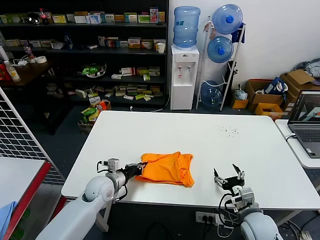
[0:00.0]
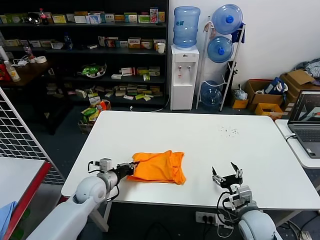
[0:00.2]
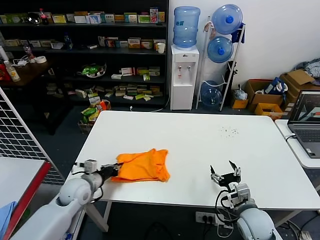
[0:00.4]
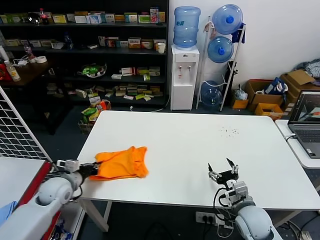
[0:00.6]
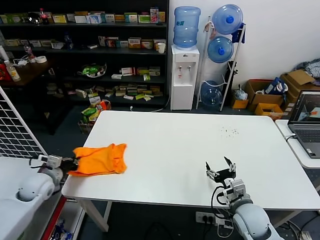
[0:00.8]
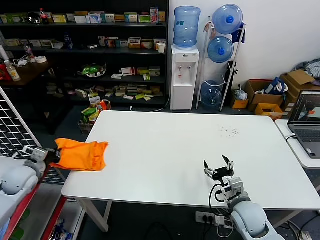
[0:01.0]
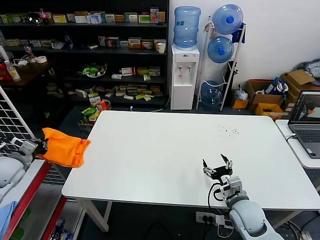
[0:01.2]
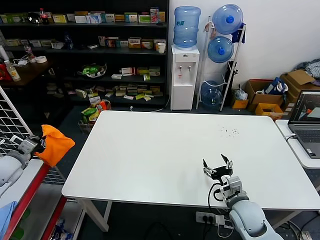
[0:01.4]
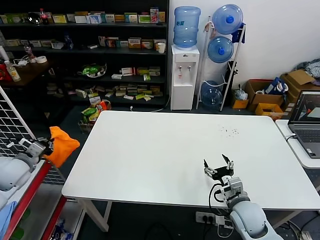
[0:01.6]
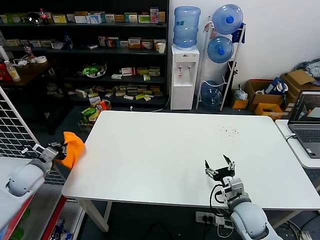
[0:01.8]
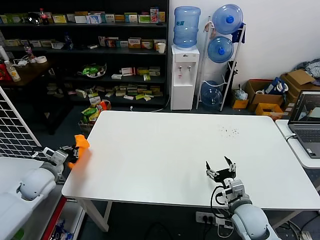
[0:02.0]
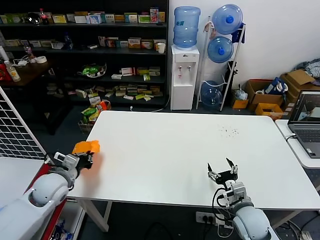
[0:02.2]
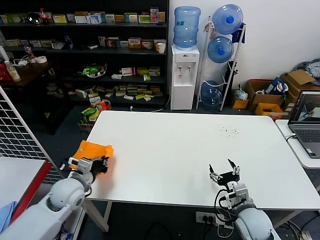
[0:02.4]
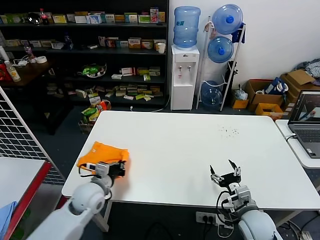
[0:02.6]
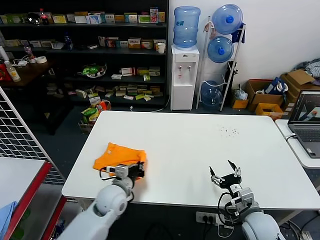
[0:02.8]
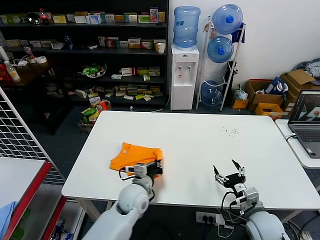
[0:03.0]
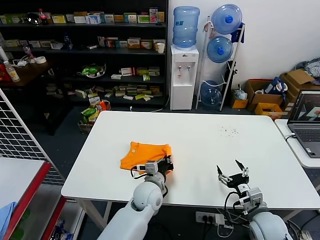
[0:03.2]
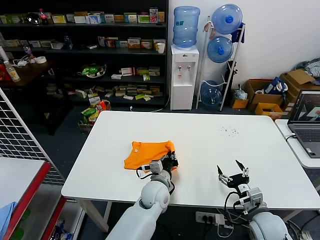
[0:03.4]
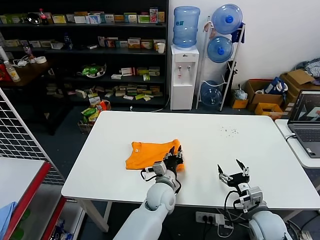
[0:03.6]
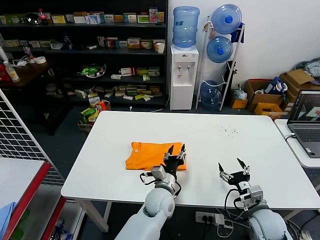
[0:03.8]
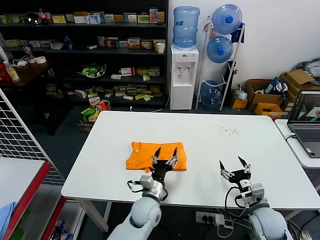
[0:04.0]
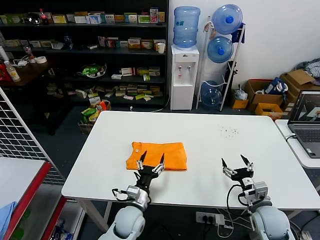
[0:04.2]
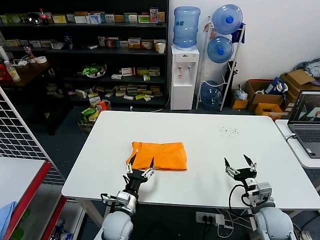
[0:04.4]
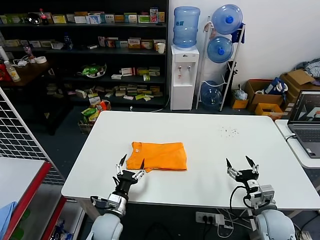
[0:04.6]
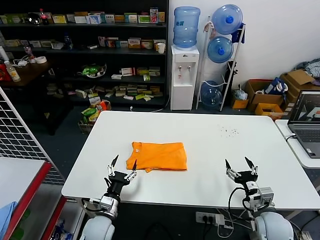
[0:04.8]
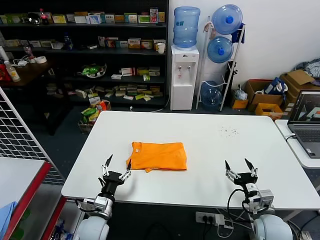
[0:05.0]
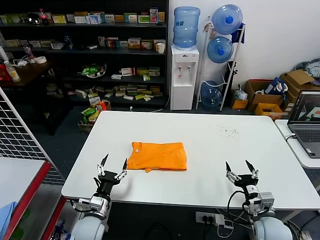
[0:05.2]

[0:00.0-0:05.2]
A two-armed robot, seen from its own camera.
Task of the whole recording: fold and organize the clothes.
Step, 0:00.0 to 0:03.6: Flip the folded clothes over with left gripper.
0:00.0 to 0:01.8: The left gripper travels to the left and upward by some 25 cm.
0:01.8 to 0:03.4: The right gripper heads to the right, covering about 5 cm; the left gripper shifts about 40 cm to the right.
0:03.4 to 0:05.2: The left gripper moves to the left and backward, some 25 cm, and opens its fingers.

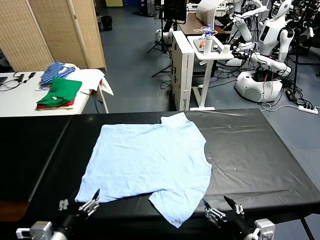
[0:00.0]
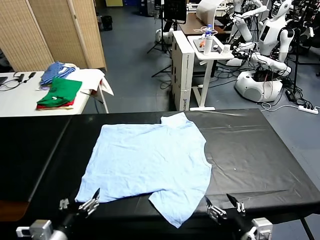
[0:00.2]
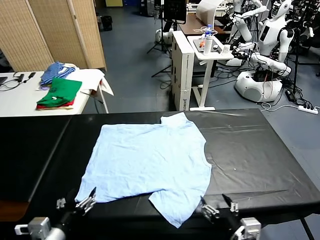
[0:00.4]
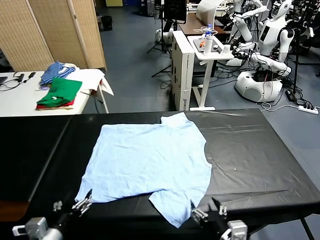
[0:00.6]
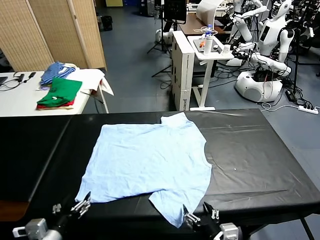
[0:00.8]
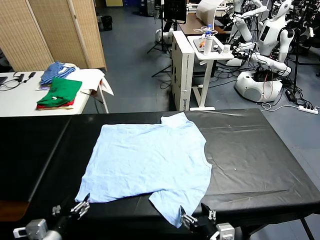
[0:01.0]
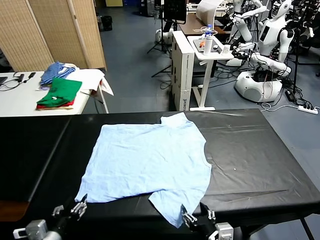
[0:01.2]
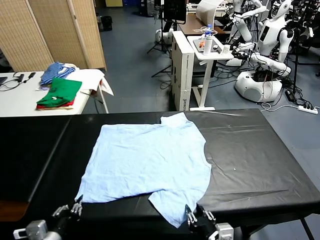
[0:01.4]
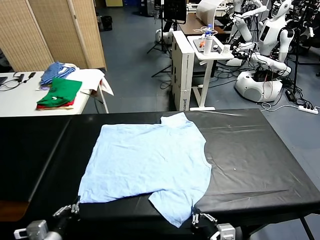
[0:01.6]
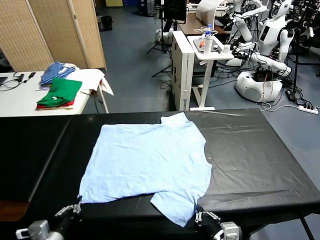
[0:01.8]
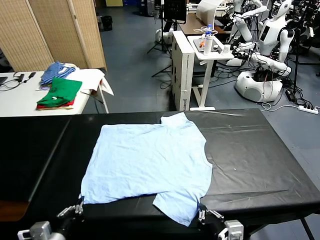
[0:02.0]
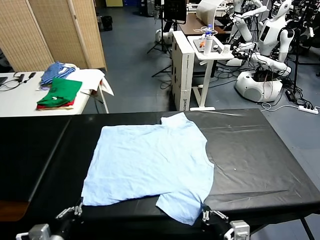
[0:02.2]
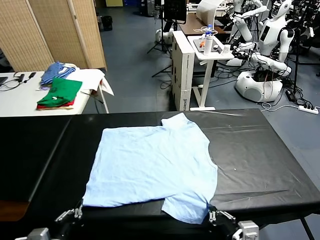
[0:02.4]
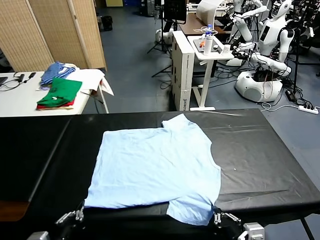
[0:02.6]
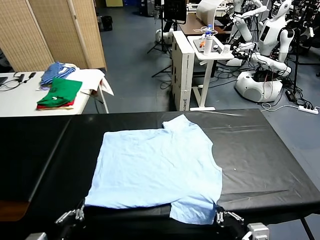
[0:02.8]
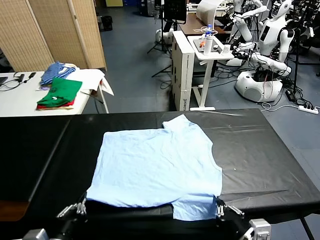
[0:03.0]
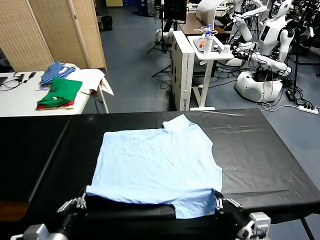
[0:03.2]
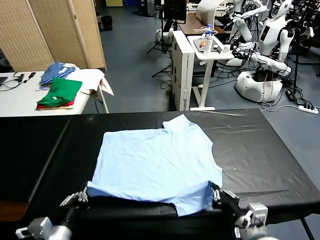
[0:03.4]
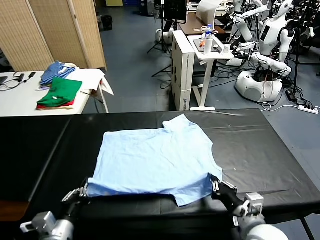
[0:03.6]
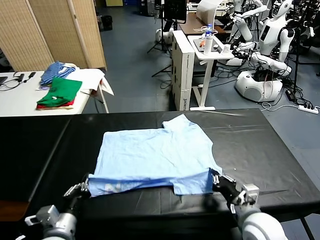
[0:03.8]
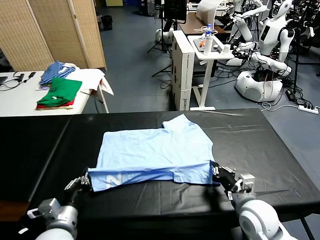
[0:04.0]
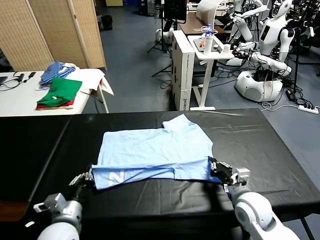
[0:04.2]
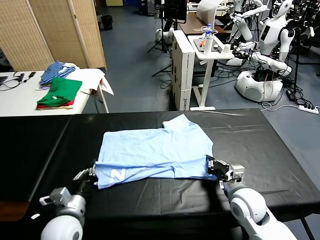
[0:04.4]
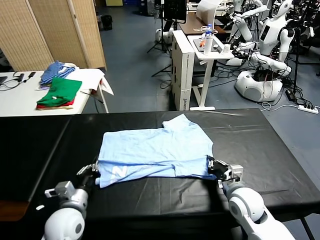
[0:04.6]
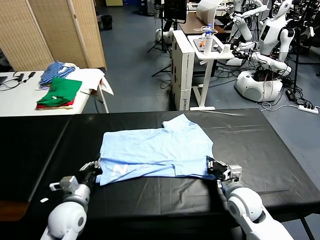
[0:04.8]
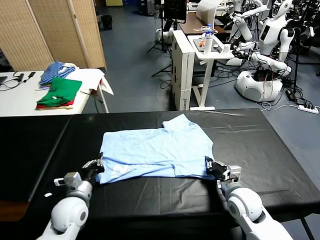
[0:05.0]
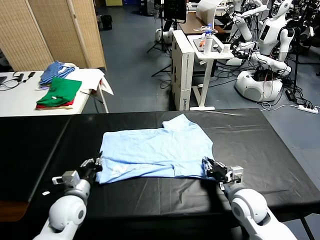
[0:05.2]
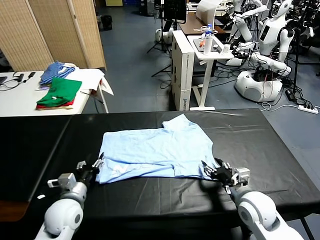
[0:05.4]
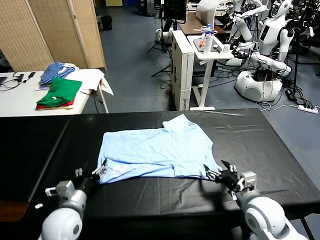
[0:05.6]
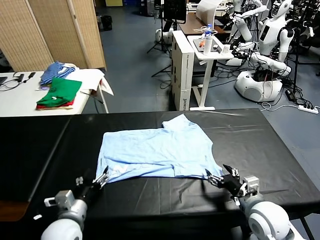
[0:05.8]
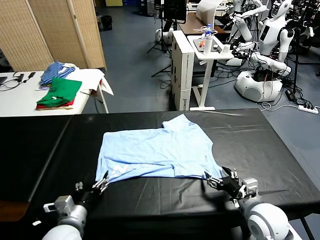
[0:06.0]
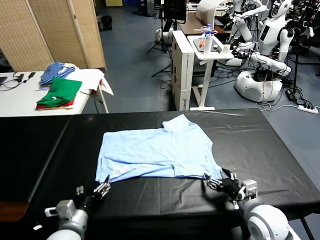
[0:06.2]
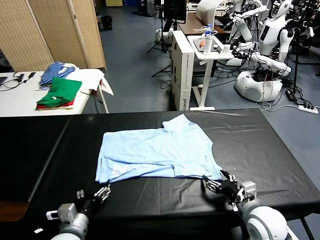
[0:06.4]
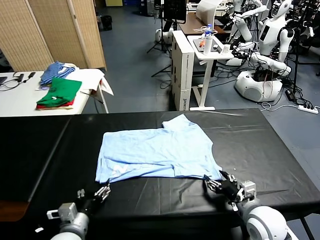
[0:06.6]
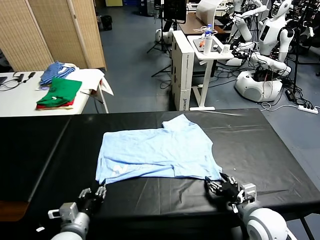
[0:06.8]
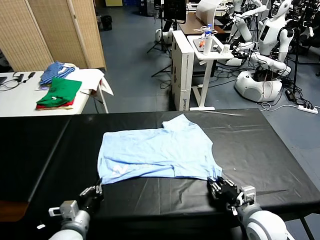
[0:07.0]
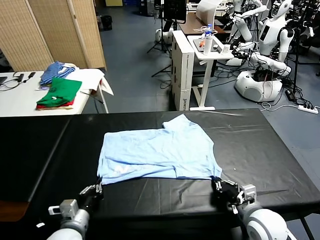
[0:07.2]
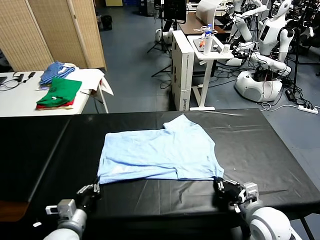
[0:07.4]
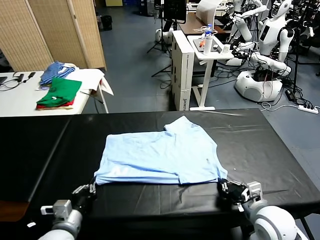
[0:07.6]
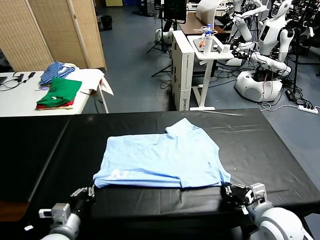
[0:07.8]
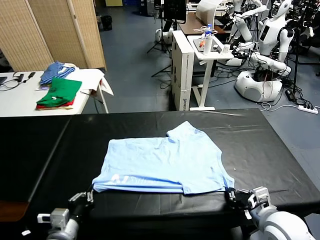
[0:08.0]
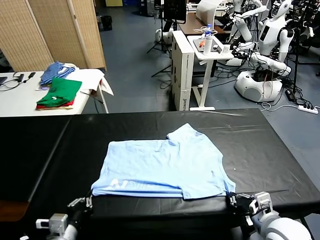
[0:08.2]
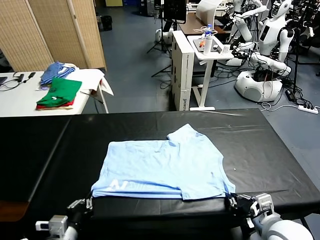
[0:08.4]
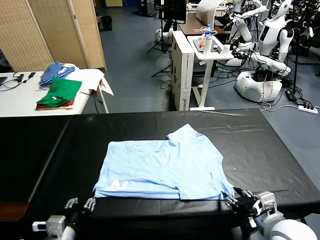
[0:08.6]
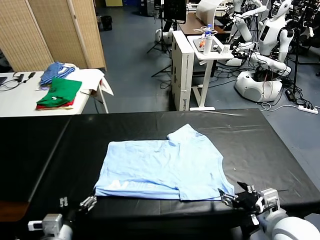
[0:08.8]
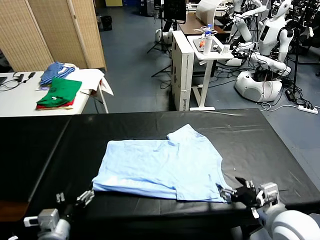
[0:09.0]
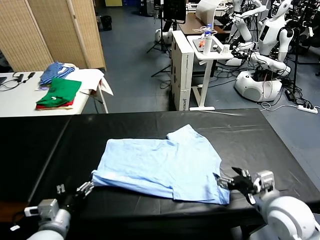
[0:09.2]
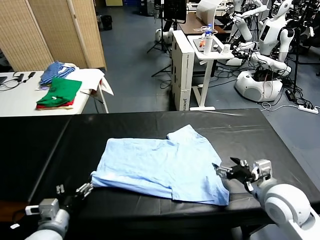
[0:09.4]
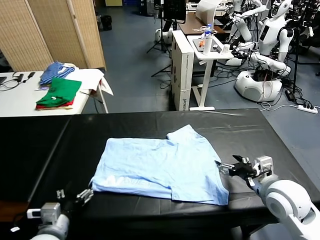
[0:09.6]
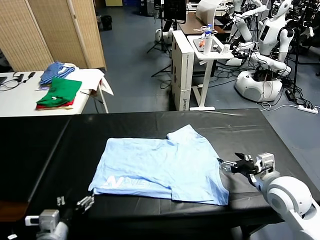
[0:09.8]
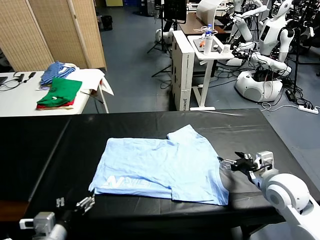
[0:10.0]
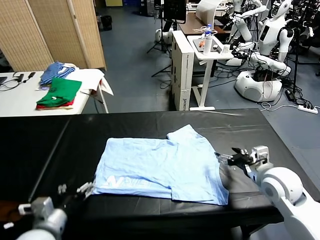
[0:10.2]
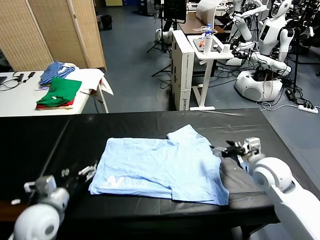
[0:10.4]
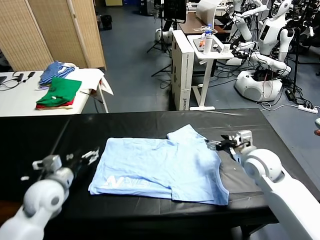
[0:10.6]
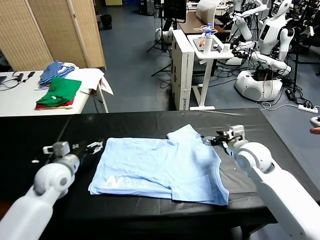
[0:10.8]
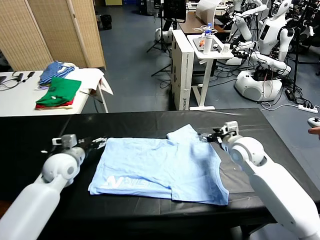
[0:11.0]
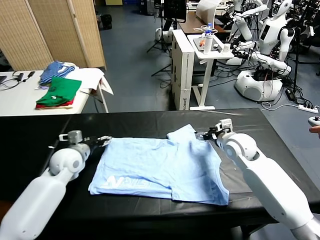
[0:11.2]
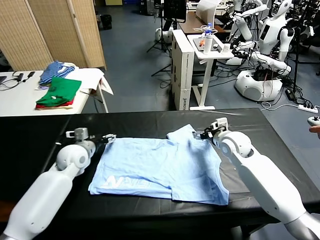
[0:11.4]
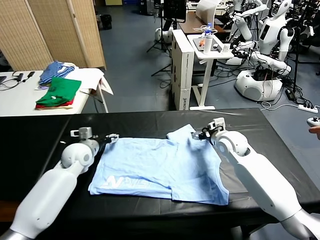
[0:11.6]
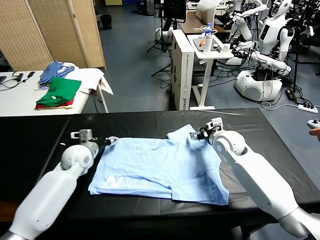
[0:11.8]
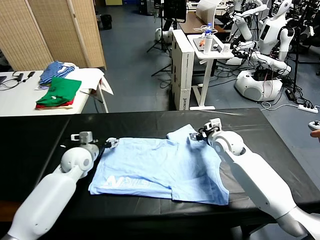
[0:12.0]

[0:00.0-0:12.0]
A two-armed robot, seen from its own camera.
Task of the whole recording: fold and organize the clothes.
Step, 0:00.0 to 0:02.0: use both grippers simultaneously to clamp the lower edge of the clothing fabric.
Step, 0:02.2 to 0:05.2: use both grippers to drag the lower edge of the fabric forward and fold it over the upper edge.
Step, 0:05.4 to 0:08.6: Drag the clothes downward with both gripper.
0:01.6 to 0:03.0: The left gripper shifts approximately 5 cm upward; the right gripper shifts by approximately 5 cm.
0:03.0 to 0:04.4: Both grippers move forward and downward, approximately 15 cm.
0:04.4 to 0:06.0: The right gripper is displaced backward by roughly 5 cm, and opens. The left gripper opens its fingers.
0:06.0 to 0:07.6: The right gripper closes up, while the left gripper closes.
0:07.6 to 0:09.0: The left gripper opens, while the right gripper moves upward, some 5 cm, and opens up.
0:09.0 to 0:10.4: The left gripper heads forward, covering approximately 10 cm. The right gripper goes some 15 cm forward.
0:10.4 to 0:12.0: The right gripper moves forward and to the left, approximately 10 cm. The left gripper is displaced forward by roughly 20 cm.

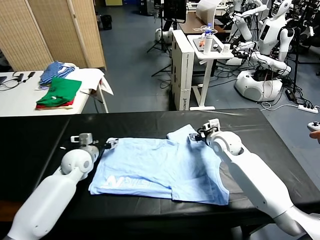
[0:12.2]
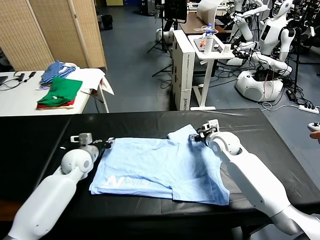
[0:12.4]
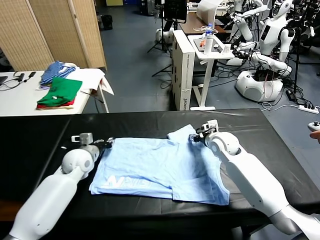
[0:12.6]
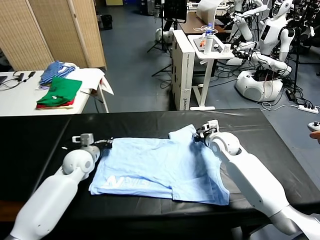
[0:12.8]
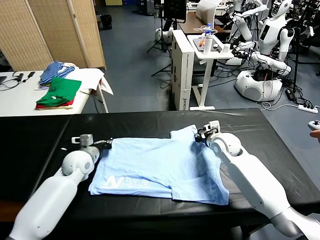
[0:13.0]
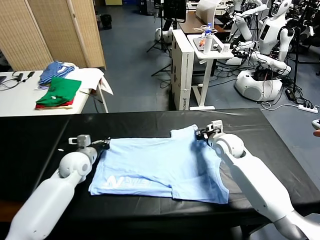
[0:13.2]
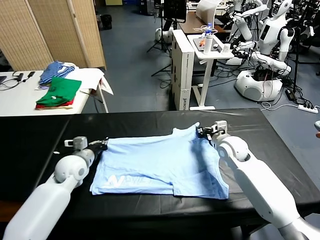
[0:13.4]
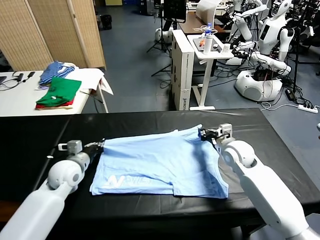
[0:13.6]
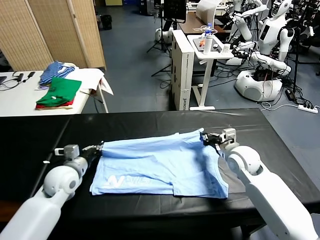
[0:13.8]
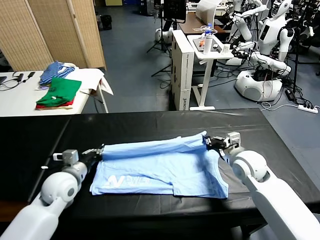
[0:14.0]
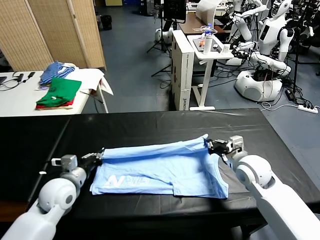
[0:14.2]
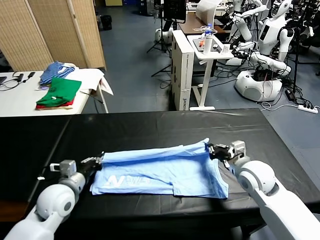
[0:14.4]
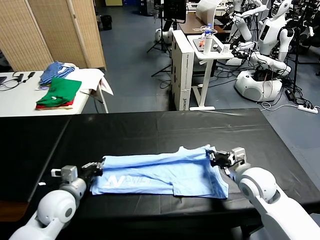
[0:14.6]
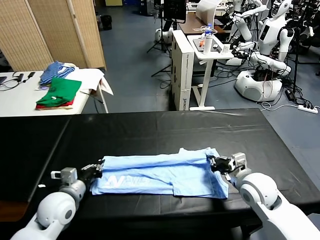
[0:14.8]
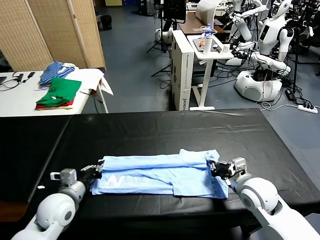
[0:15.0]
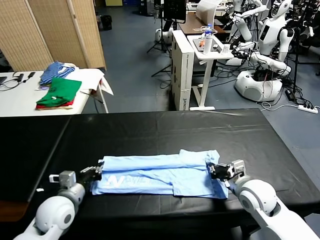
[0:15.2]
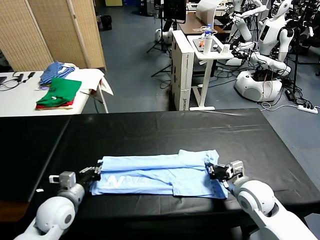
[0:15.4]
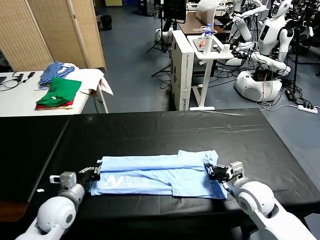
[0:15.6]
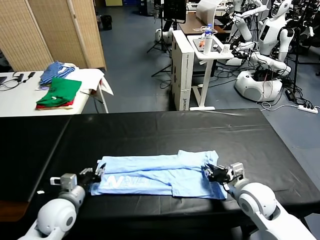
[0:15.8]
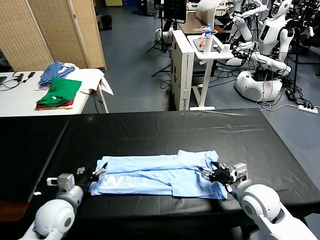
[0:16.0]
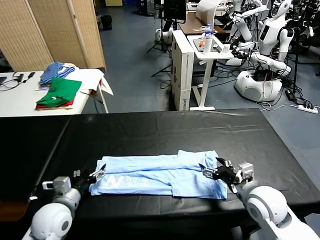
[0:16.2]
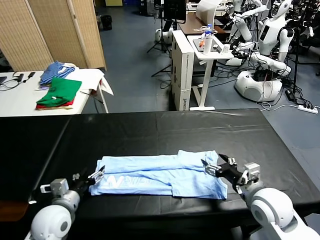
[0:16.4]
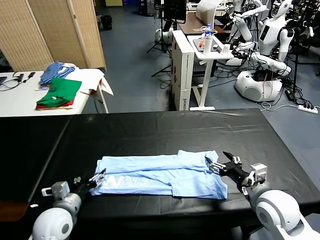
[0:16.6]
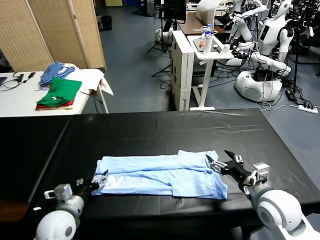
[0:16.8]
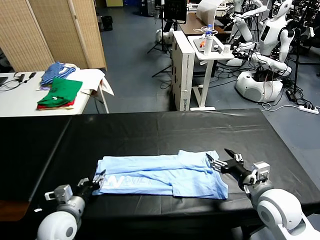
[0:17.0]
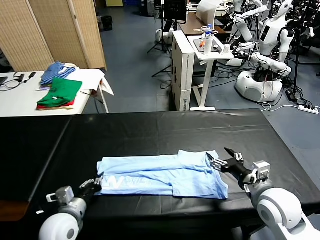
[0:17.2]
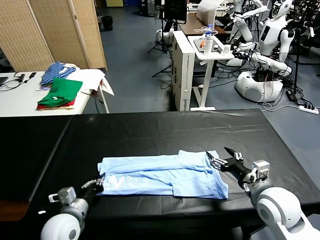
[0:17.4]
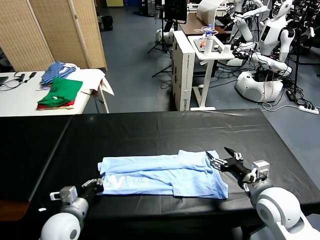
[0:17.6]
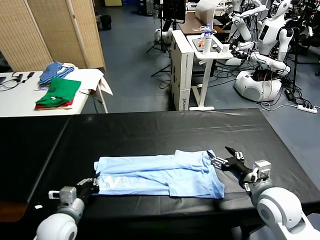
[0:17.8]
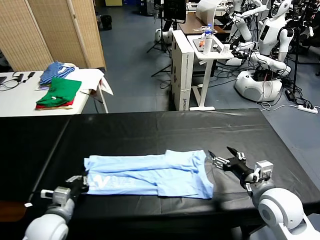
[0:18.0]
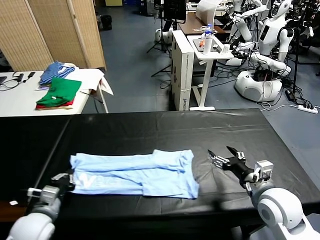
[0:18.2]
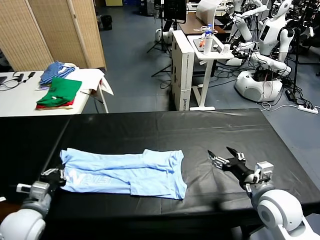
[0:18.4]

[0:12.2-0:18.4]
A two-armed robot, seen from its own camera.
Task of the whole recording: fold and organize the clothes.
Step, 0:13.4 to 0:15.8: use both grippers to drag the upper edge of the fabric backward and fold it over the lower edge.
Step, 0:16.0 to 0:17.6: use the left gripper to clamp the left edge of the fabric.
0:12.2 to 0:13.8: Both grippers travel together backward, roughly 10 cm. The right gripper closes. Meanwhile the left gripper closes.
0:13.8 to 0:15.4: Both grippers travel together backward, roughly 10 cm.
0:15.4 to 0:16.8: The right gripper heads upward, covering some 5 cm, and opens up. The left gripper opens up.
0:16.8 to 0:18.4: The left gripper moves to the left, some 5 cm, and closes.
